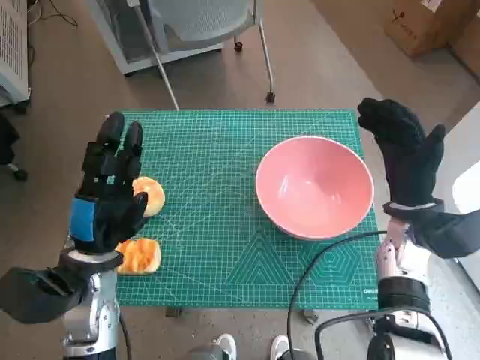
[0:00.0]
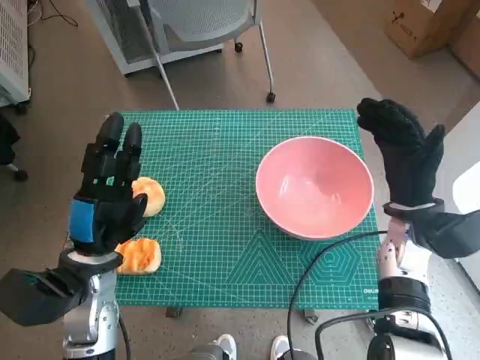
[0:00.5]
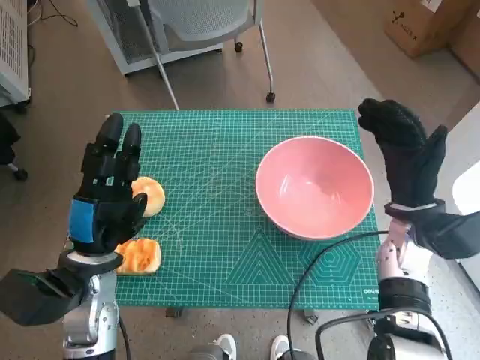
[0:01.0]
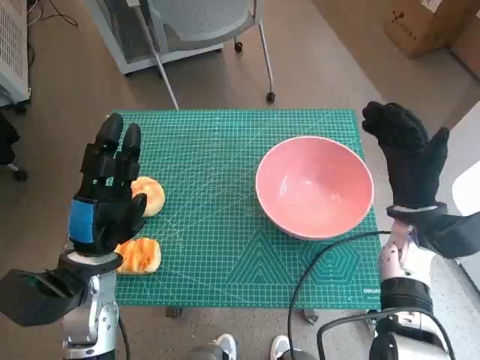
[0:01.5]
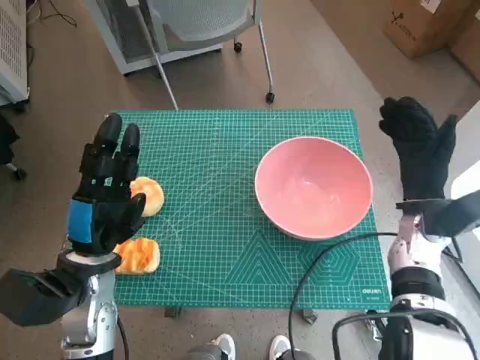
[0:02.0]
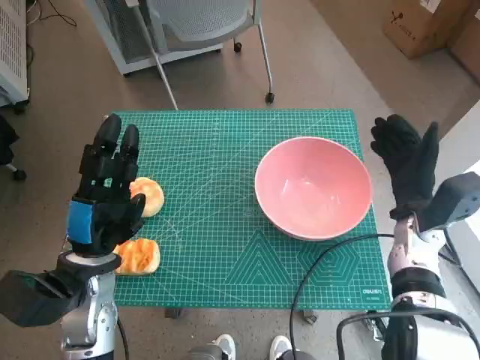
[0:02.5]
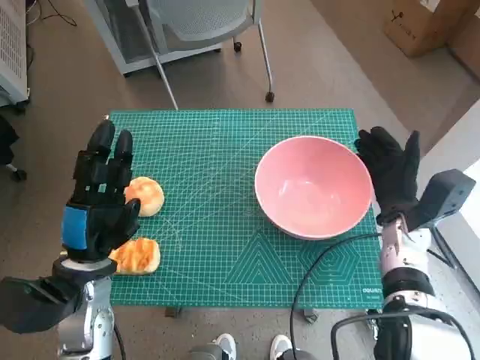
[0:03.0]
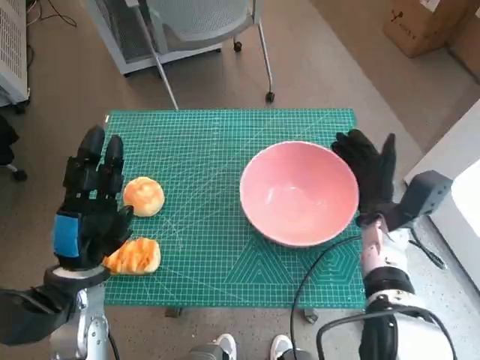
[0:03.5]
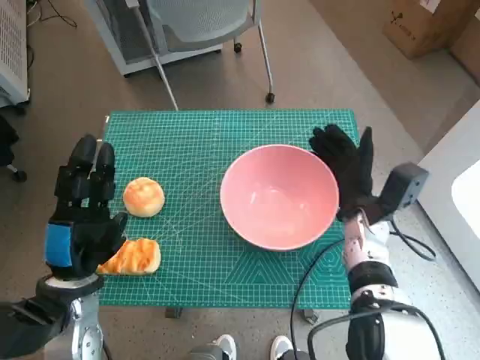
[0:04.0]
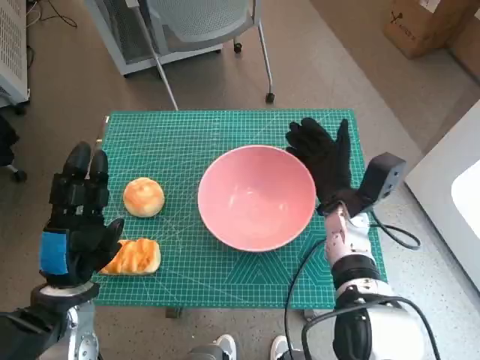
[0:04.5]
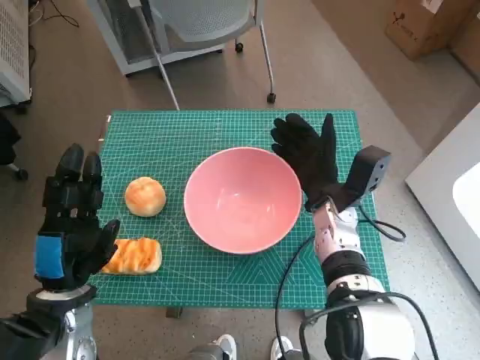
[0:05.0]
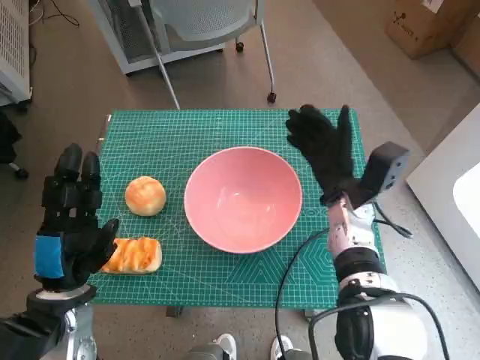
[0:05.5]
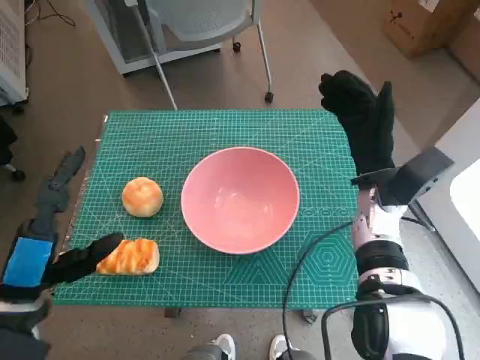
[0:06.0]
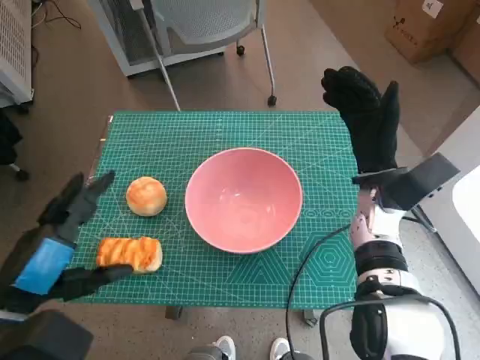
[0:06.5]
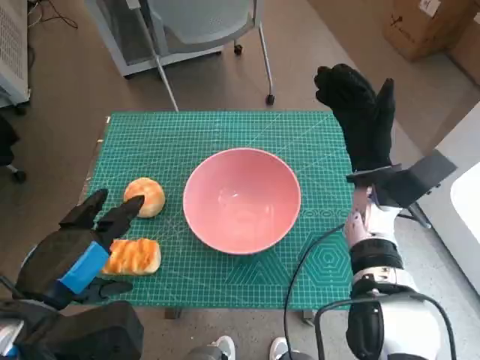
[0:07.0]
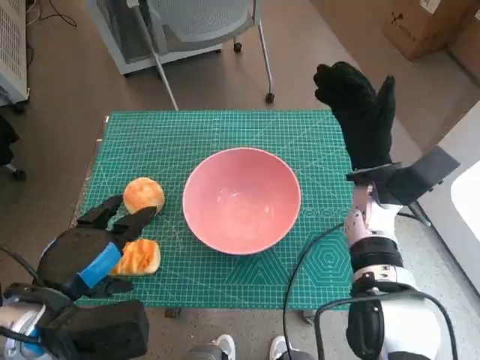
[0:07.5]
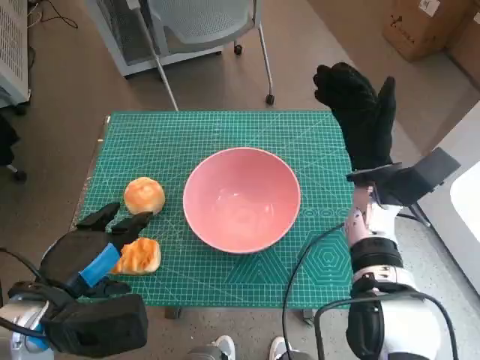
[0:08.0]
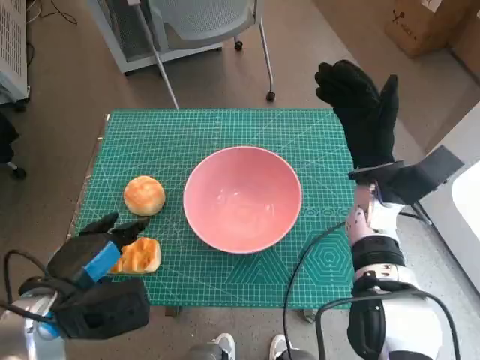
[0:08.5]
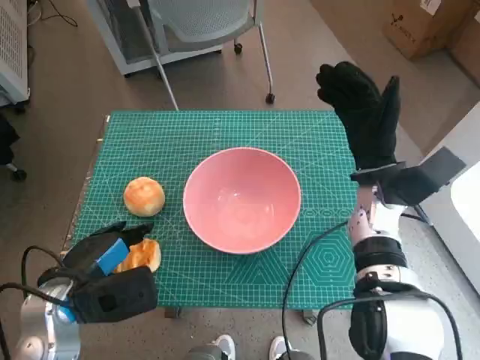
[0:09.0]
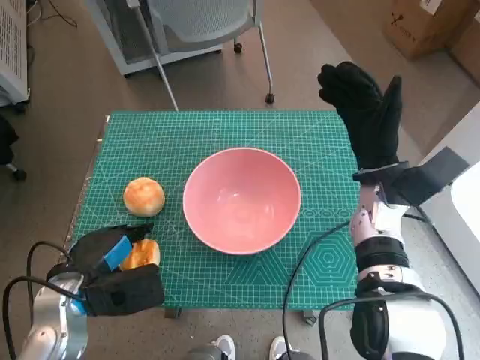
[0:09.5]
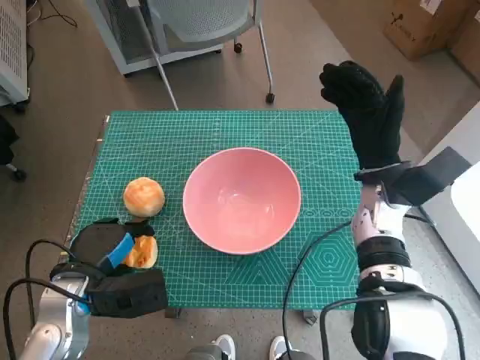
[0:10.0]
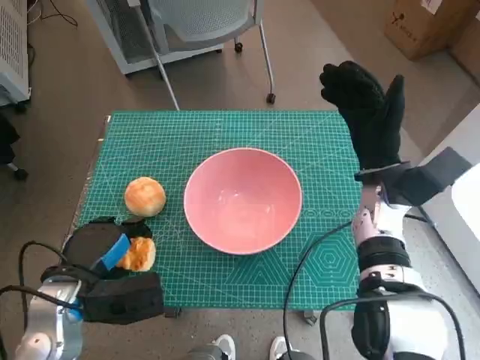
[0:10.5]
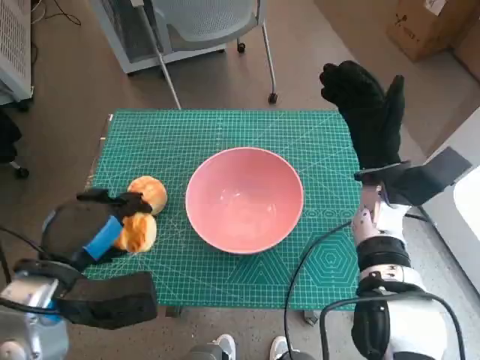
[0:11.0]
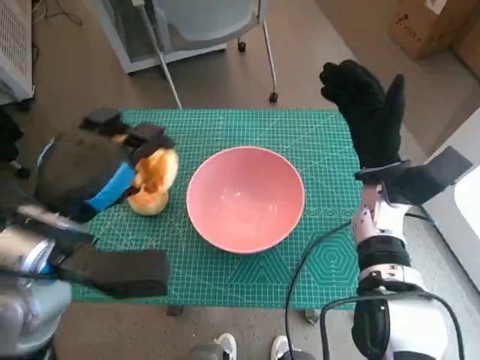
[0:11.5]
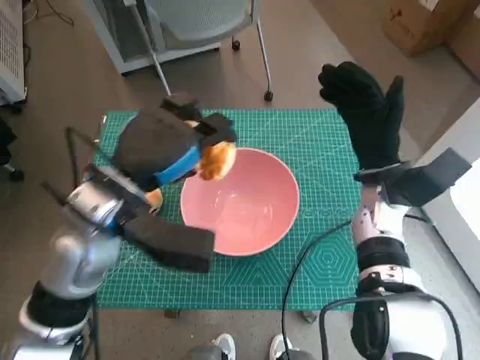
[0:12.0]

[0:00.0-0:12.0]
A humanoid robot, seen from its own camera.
Step, 0:00.0 to 0:05.0: Move the pink bowl to the center of table with right hand.
Step, 0:05.5 to 0:09.5: Grasp the long bread with left hand.
0:02.0 to 0:04.0: The right hand travels to the left by some 5 cm.
0:04.0 to 0:06.0: The right hand goes about 5 cm upward. The left hand changes place by approximately 5 cm.
0:08.0 to 0:10.0: The left hand shifts roughly 5 cm downward.
0:10.0 to 0:12.0: The left hand goes roughly 15 cm upward, to the right and forward.

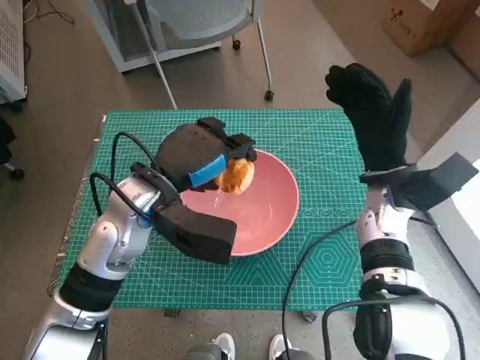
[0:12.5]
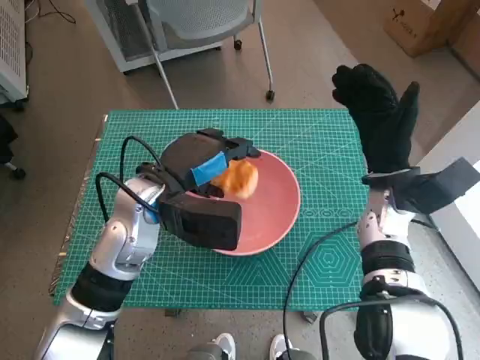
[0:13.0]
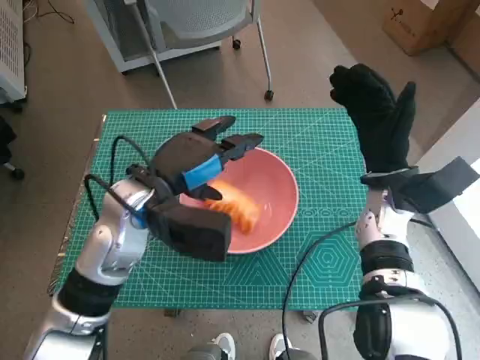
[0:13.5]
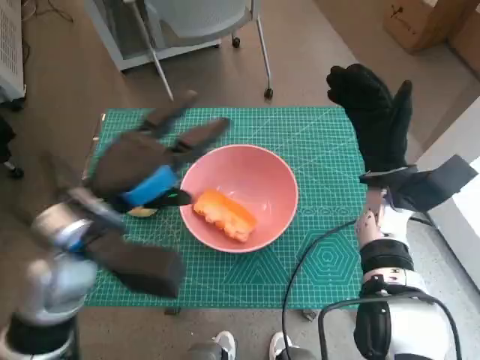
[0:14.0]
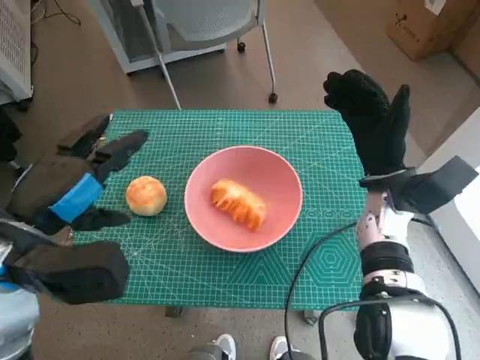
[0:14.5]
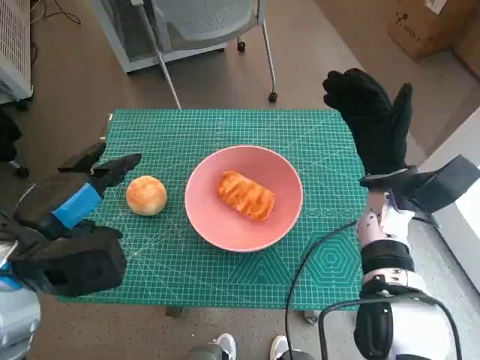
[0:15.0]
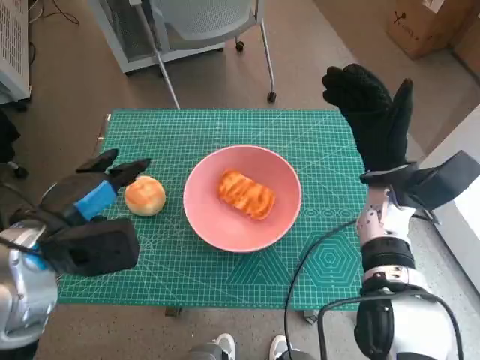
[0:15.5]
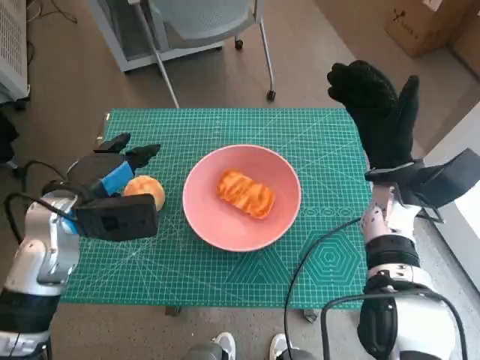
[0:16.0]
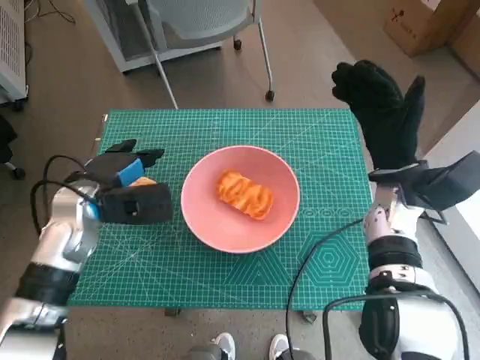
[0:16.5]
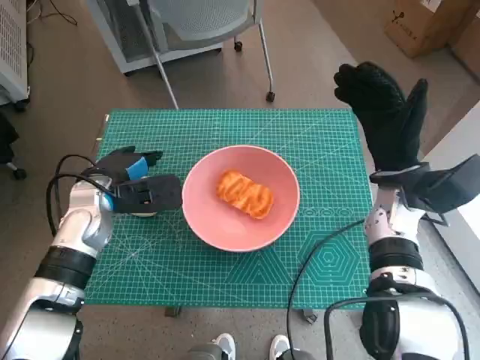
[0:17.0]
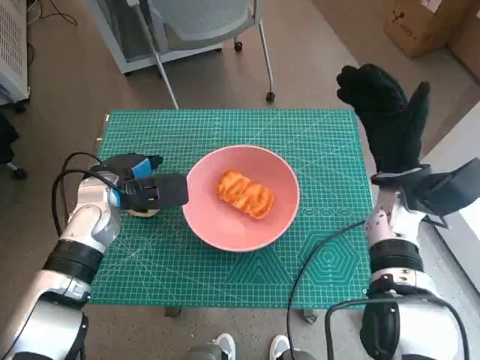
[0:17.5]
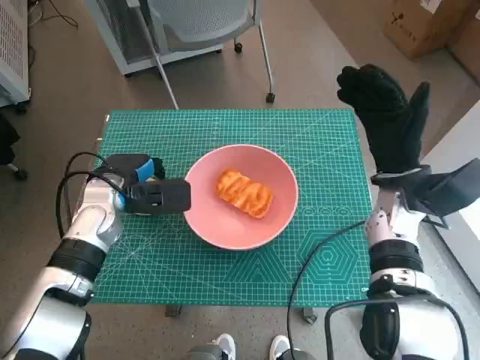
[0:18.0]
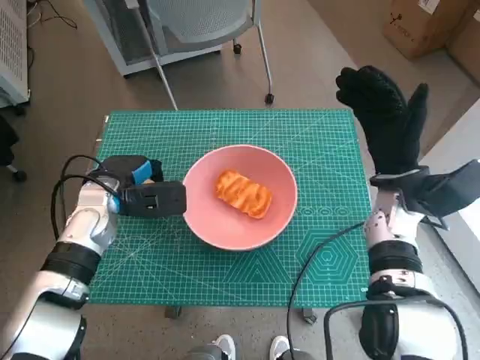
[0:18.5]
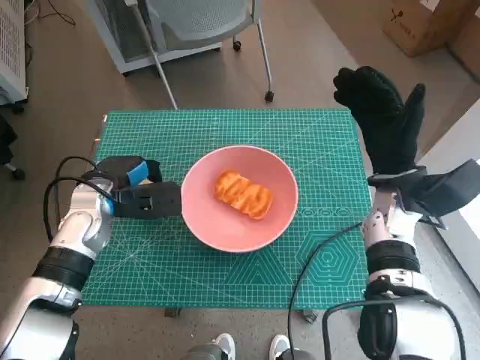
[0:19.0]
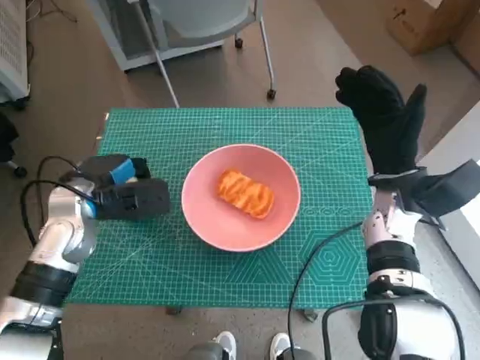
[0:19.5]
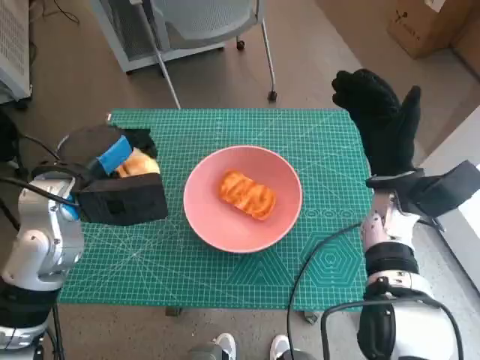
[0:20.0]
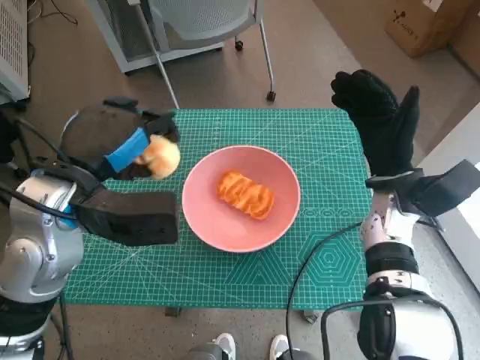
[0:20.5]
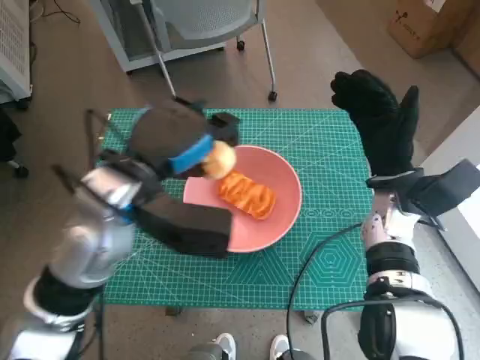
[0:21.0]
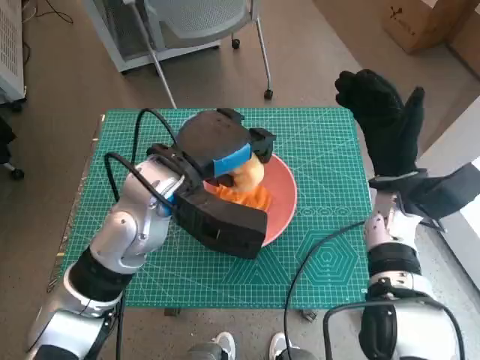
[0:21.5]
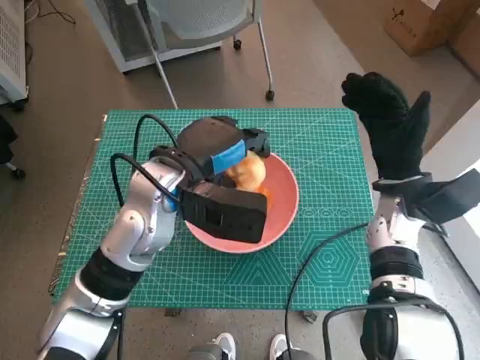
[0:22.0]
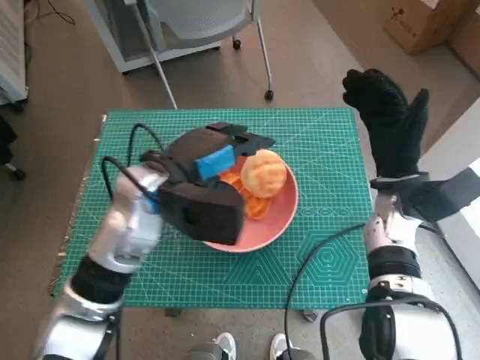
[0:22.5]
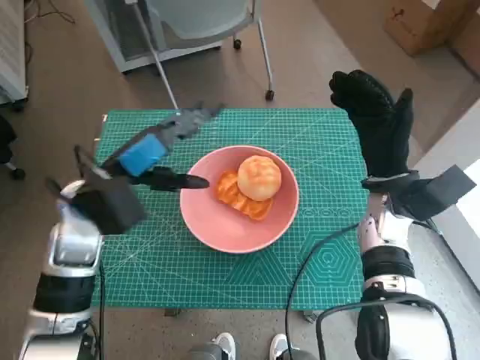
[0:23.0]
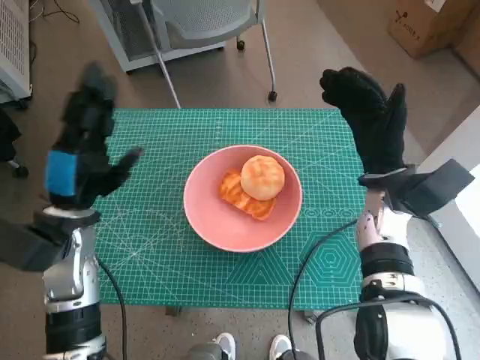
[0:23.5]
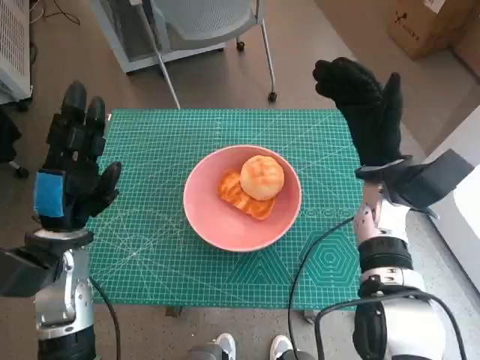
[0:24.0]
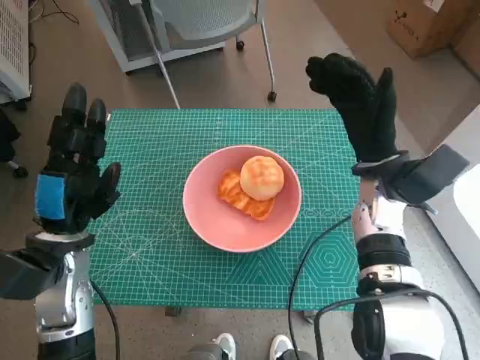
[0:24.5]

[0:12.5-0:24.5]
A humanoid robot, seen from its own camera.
Step, 0:13.5 to 0:18.0: Grasp the round bread with left hand.
Step, 0:18.5 to 0:22.5: Place the round bread in pink bowl with left hand.
0:12.5 to 0:14.5: The left hand is displaced to the left and backward by some 15 cm.
0:14.5 to 0:16.5: The left hand goes approximately 15 cm forward and downward.
0:16.5 to 0:18.5: The hands stay close to where they were, moving slightly.
0:18.5 to 0:20.5: The left hand heads upward and backward, covering approximately 15 cm.
0:20.5 to 0:22.5: The left hand travels to the right by some 5 cm.
0:22.5 to 0:24.5: The left hand travels to the left, backward and downward by some 15 cm.

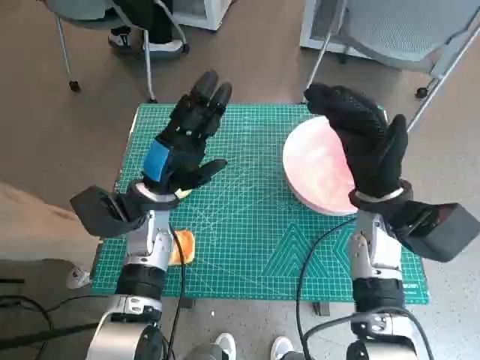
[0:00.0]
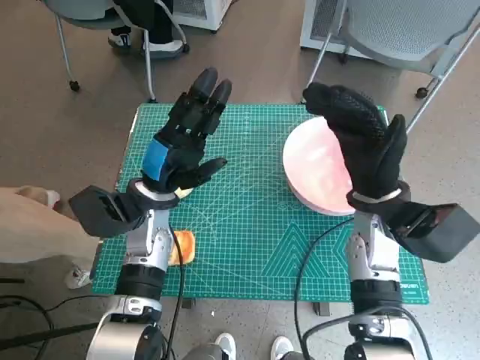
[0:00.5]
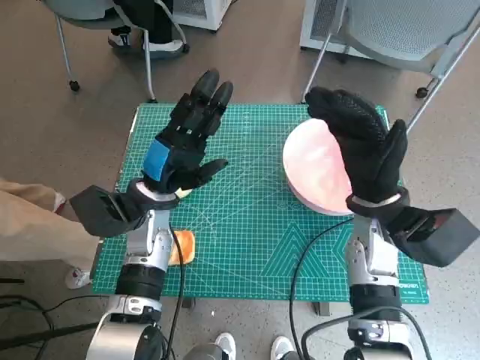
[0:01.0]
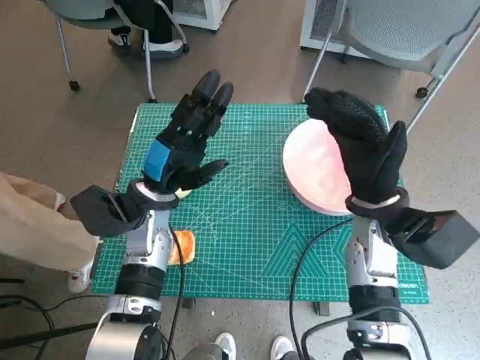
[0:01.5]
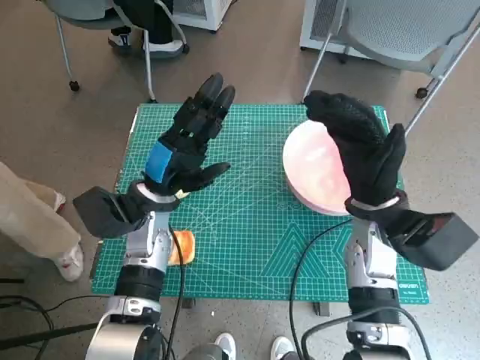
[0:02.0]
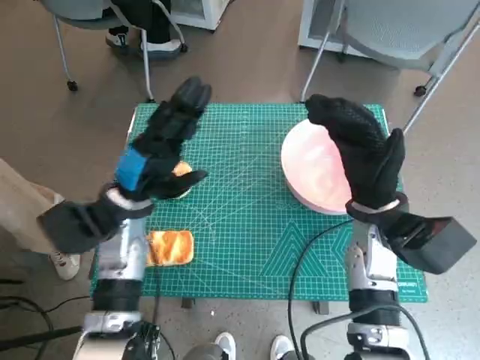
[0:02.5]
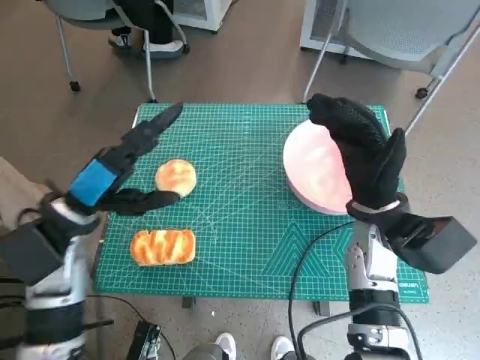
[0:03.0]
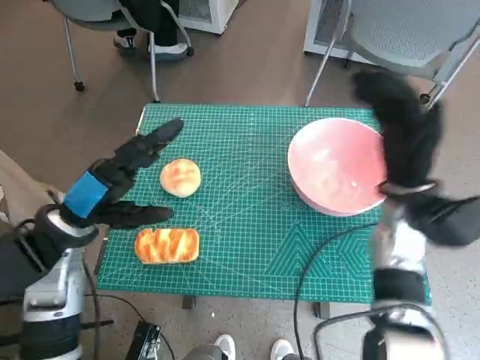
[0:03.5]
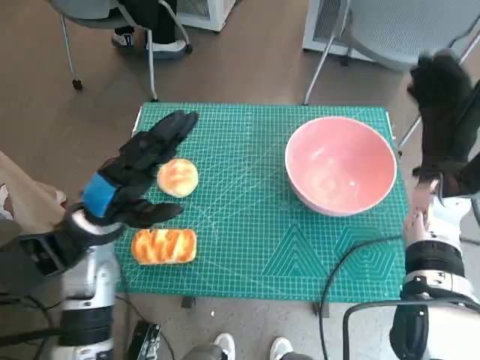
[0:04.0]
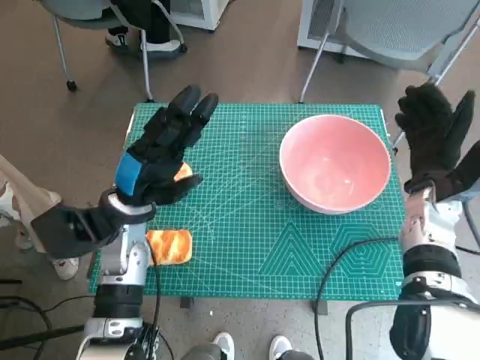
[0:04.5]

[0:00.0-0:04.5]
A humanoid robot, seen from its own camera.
0:02.0 to 0:04.5: The left hand goes to the left and returns, roughly 10 cm each way; the right hand goes roughly 10 cm to the right.
